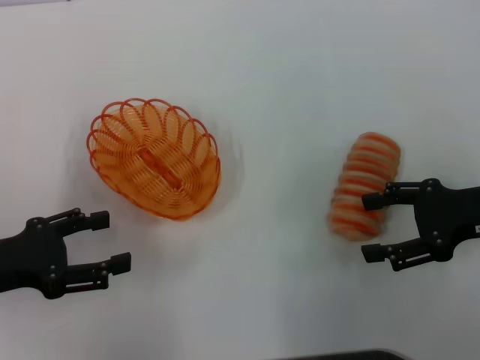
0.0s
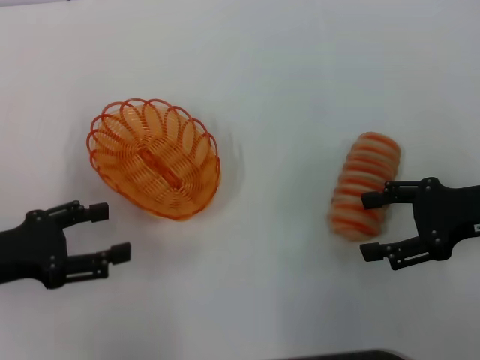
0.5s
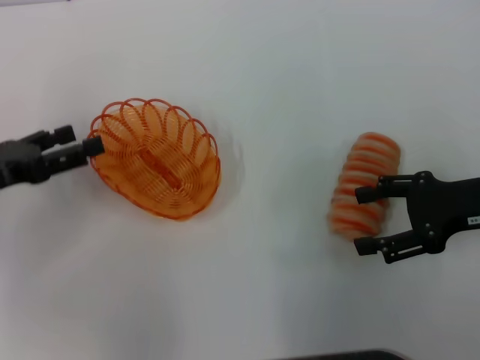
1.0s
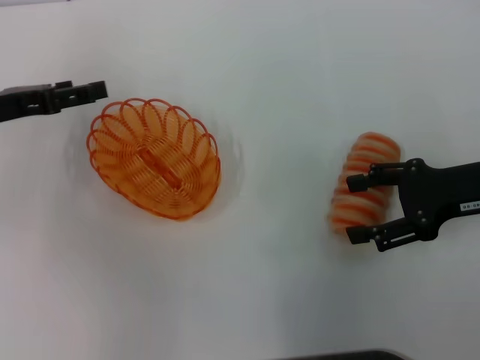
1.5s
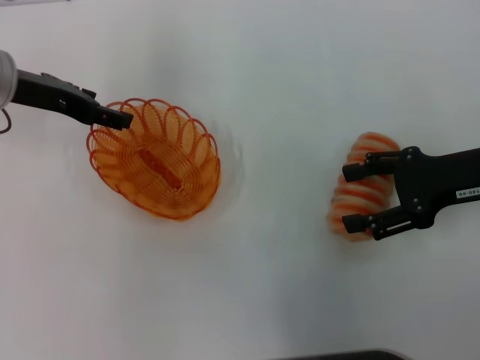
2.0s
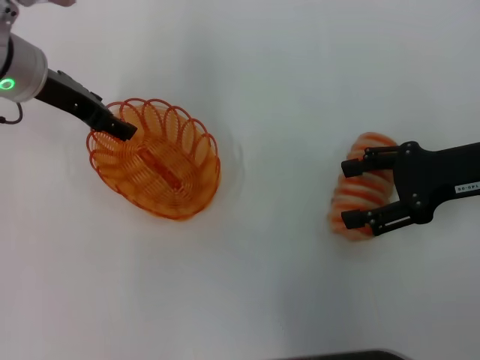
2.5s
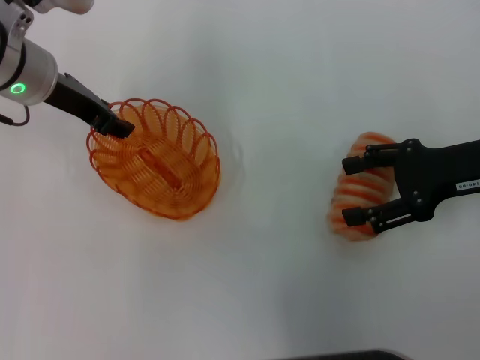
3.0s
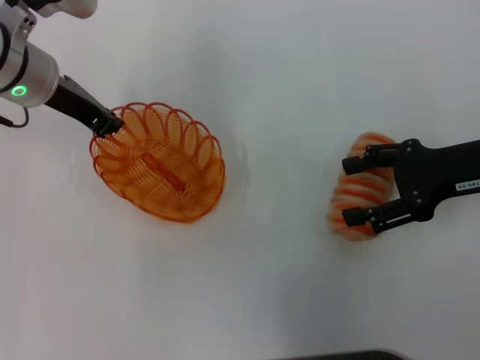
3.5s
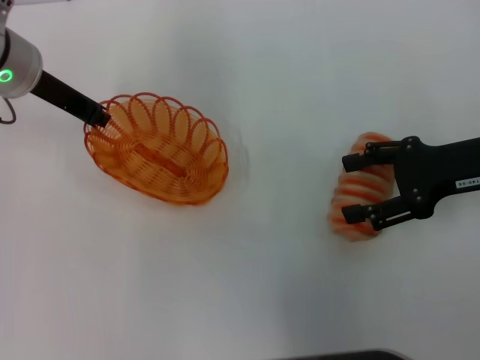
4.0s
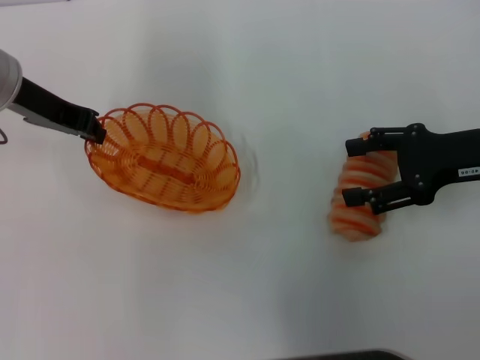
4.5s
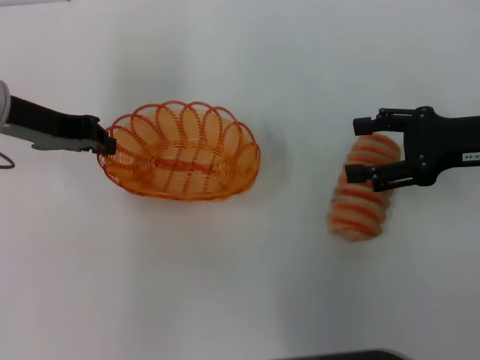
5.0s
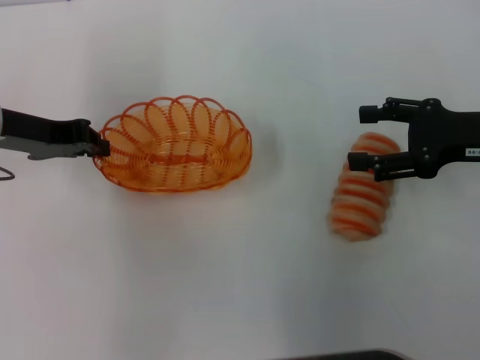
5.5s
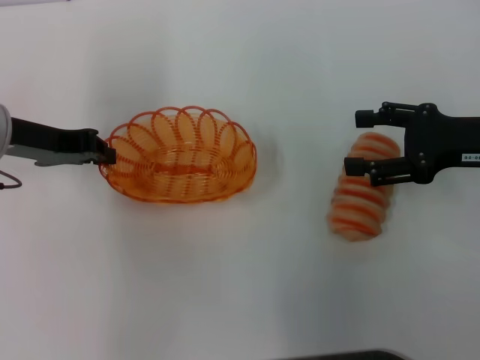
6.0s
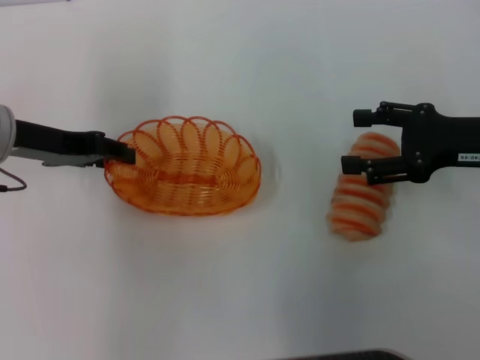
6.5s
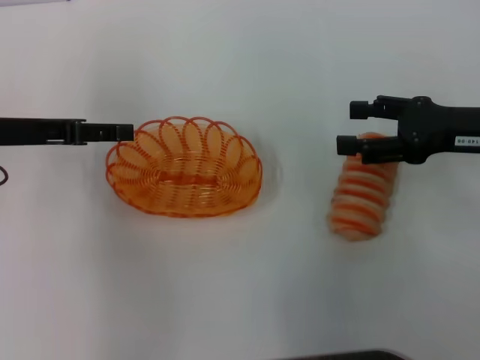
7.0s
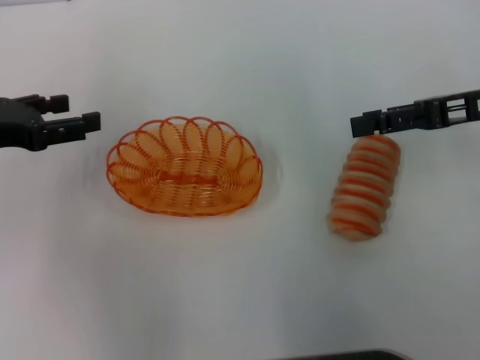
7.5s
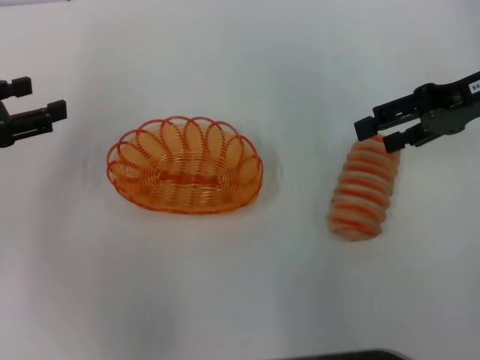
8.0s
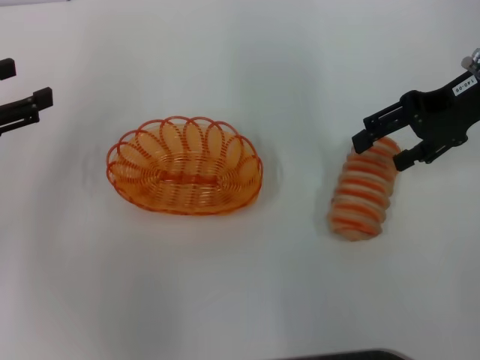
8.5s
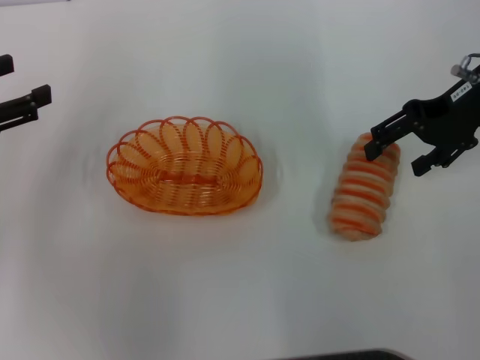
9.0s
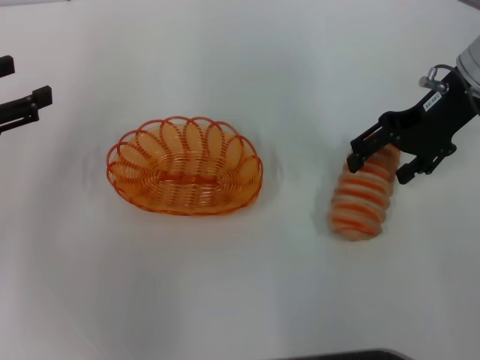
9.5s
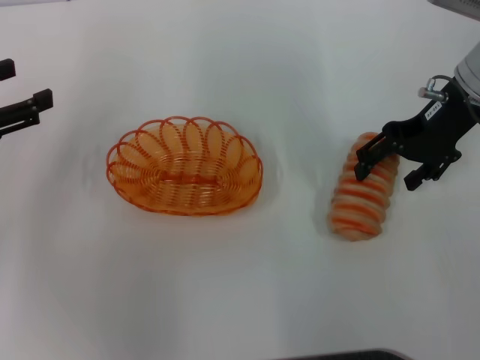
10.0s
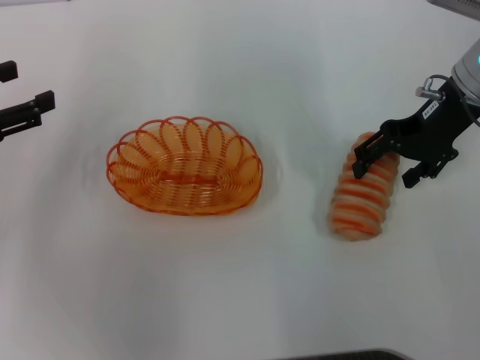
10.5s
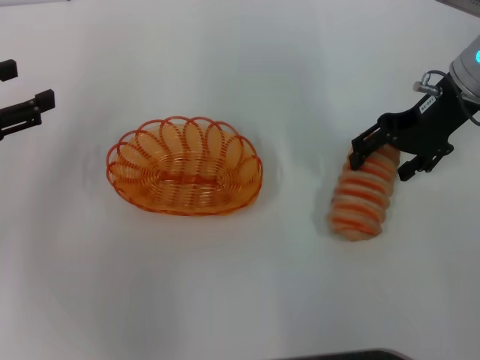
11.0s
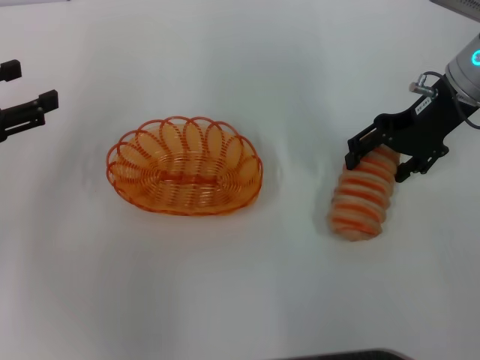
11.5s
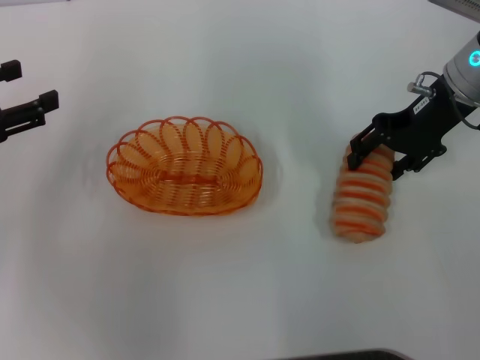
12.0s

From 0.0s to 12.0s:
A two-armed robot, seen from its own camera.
Step, from 0.0s to 3.5s: Pick up the basket with the left gripper.
Step, from 4.5s to 7.0s: Place the basket in the center of view with the left gripper.
From 0.0s to 2.0s: The left gripper is displaced forward and upward by roughly 20 cm.
From 2.0s to 4.0s: The left gripper closes its fingers.
From 4.0s to 6.0s: The left gripper shifts about 5 cm backward.
From 6.0s to 8.0s: The left gripper heads to the left and backward, covering about 10 cm, and opens its fingers. Meanwhile the right gripper travels upward and forward by about 10 cm.
From 8.0s to 10.0s: The right gripper goes approximately 5 cm to the left.
From 10.0s to 12.0s: The grippers stay close to where they were, moving slightly.

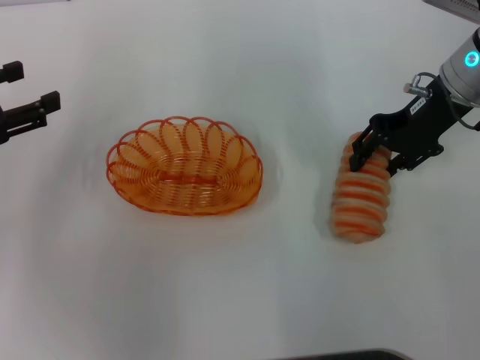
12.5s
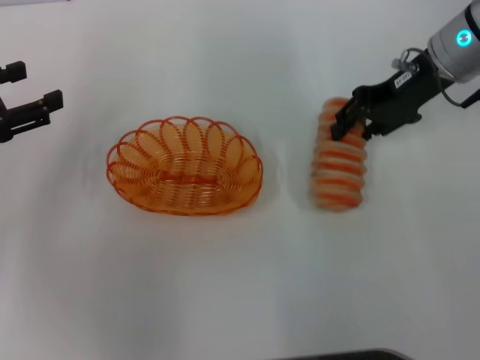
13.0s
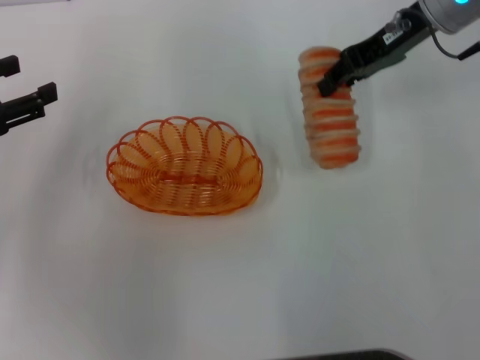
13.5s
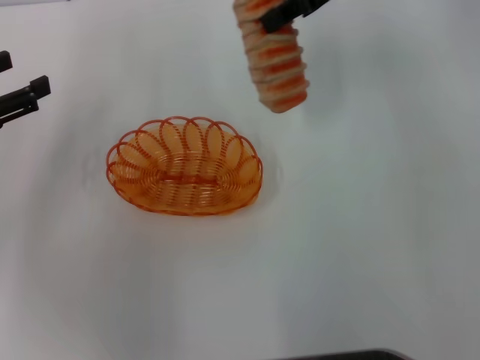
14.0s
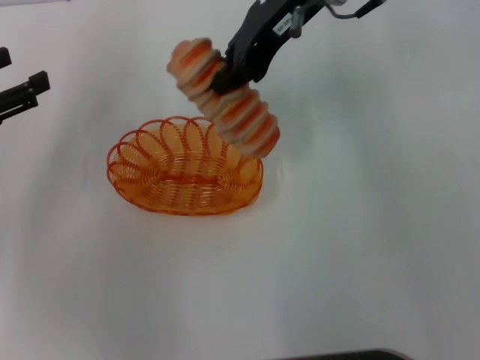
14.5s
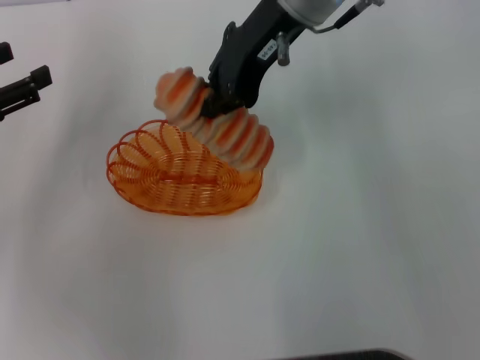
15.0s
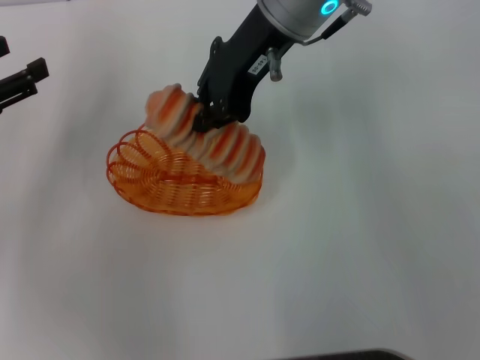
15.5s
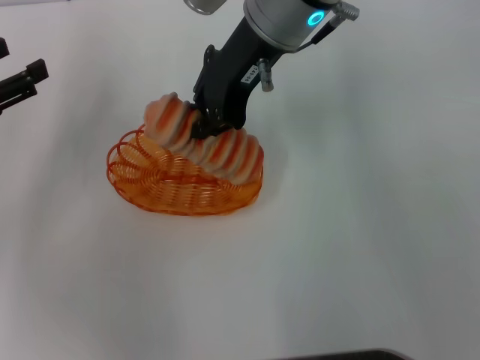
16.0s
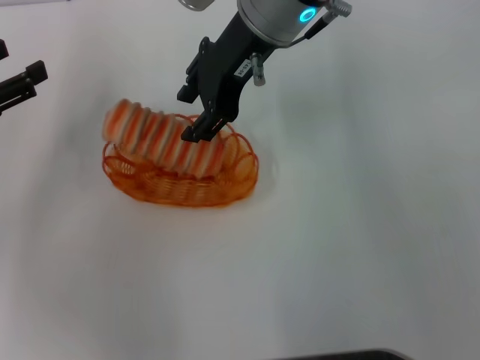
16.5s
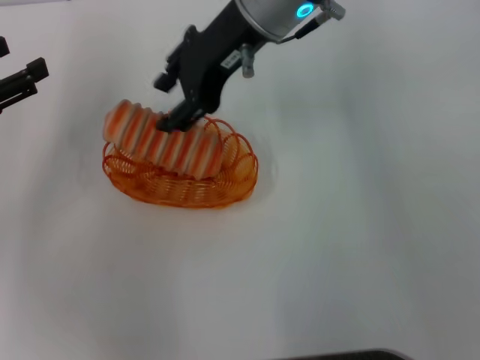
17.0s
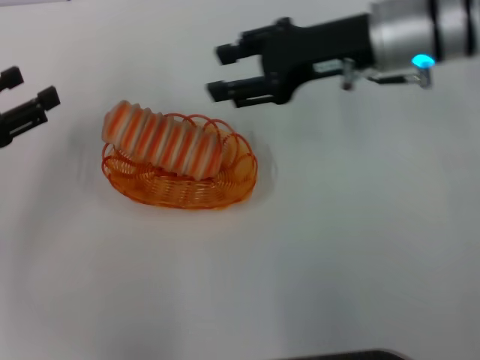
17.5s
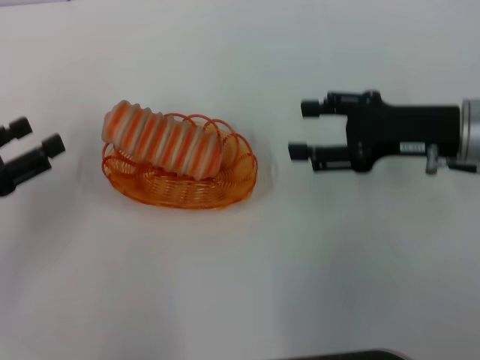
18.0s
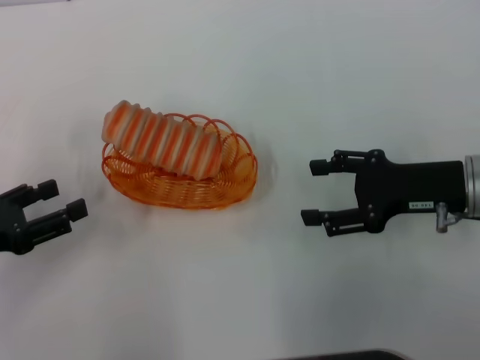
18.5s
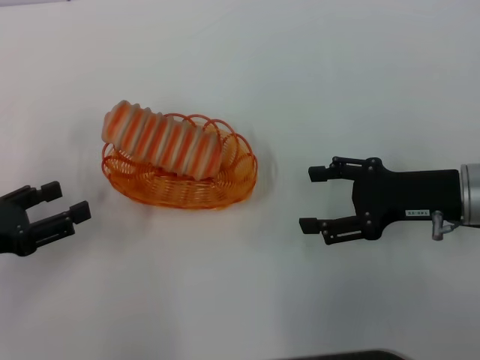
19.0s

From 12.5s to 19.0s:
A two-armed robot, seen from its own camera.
Step, from 13.0s to 17.0s: Place the long bread into the basket with the right gripper.
From 12.5s to 14.5s: The right gripper goes some 15 cm to the left and upward, and closes.
From 14.5s to 17.0s: The right gripper opens its fingers.
From 17.0s to 19.0s: The right gripper goes about 30 cm to the right, downward and backward, and opens. Meanwhile the left gripper travels backward and downward by approximately 10 cm.

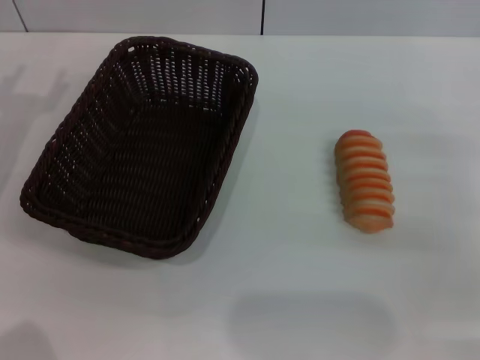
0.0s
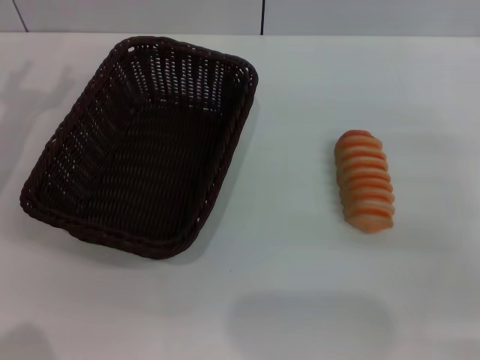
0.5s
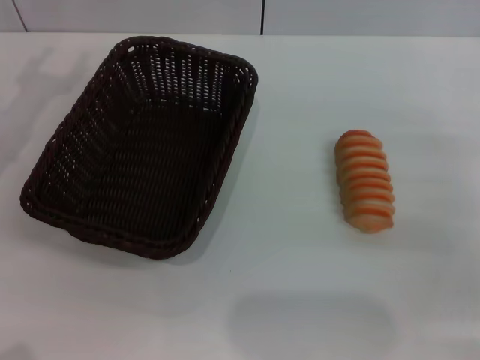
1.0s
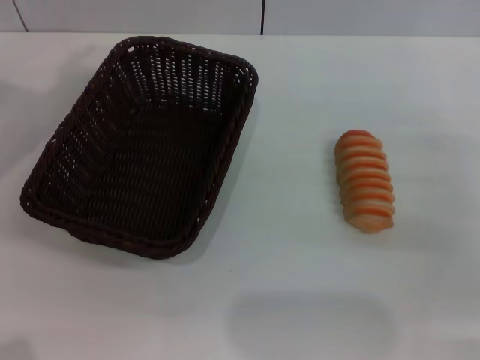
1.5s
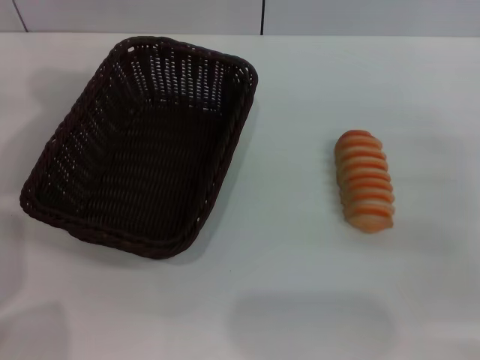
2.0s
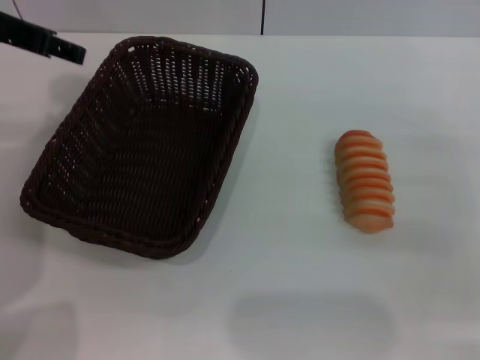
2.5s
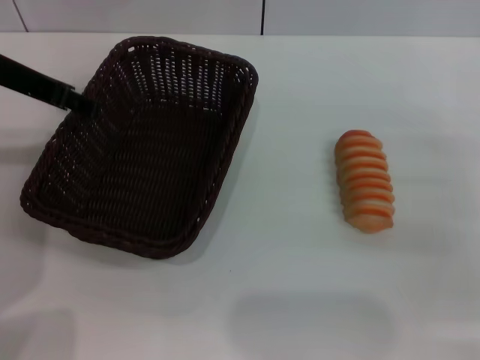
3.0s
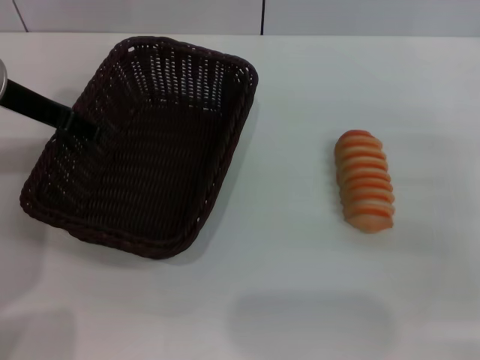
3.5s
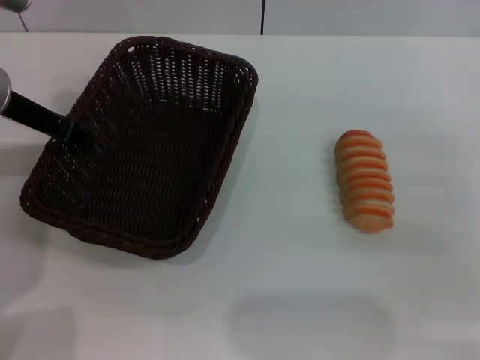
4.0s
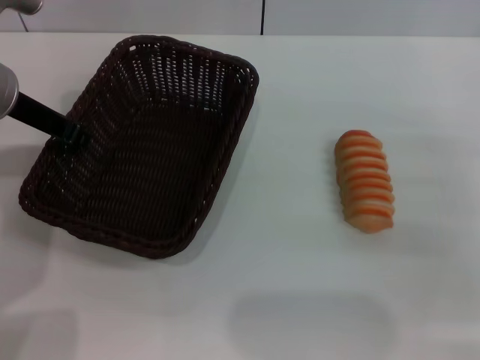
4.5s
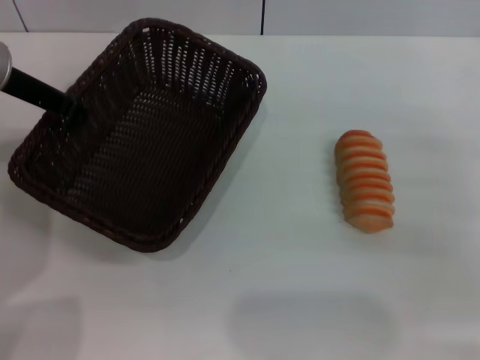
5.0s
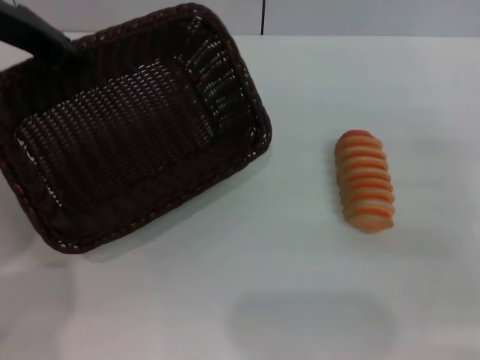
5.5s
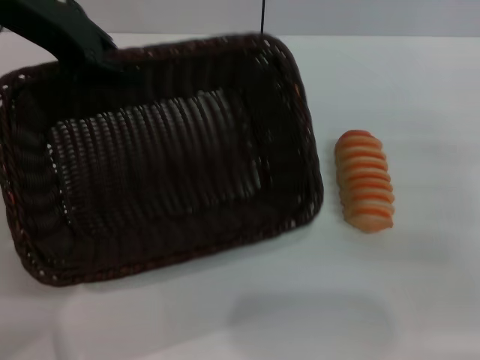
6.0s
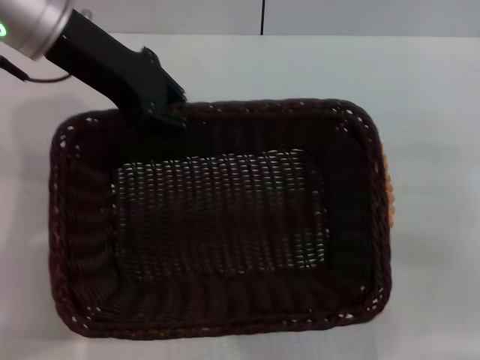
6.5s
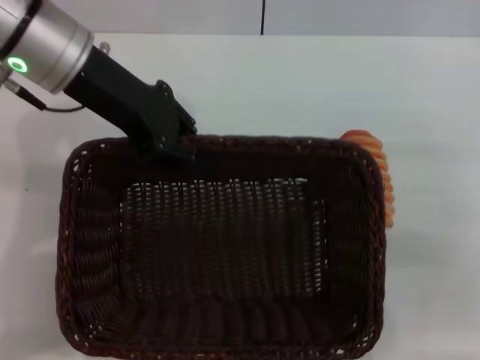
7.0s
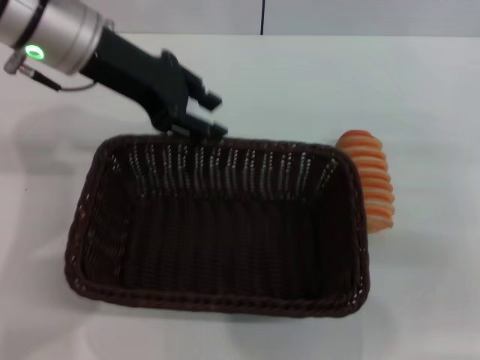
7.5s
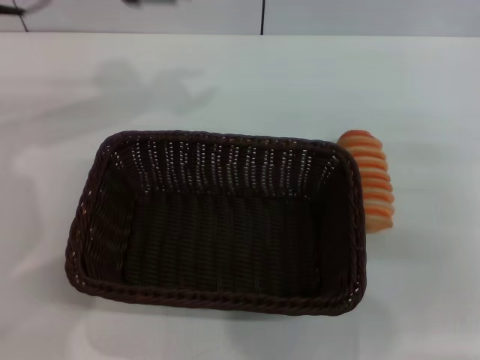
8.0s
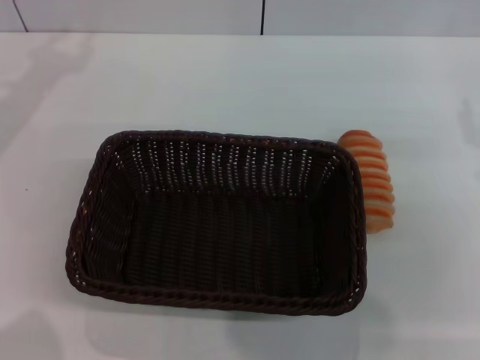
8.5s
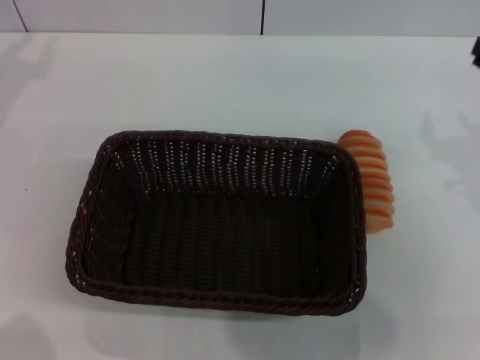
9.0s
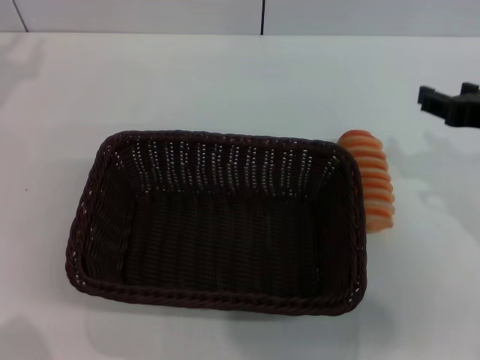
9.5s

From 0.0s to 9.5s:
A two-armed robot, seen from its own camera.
Step, from 0.0s to 4.0s: Grasp the basket with the left gripper.
Step, from 5.0s to 7.5s: Place the basket in the center of the table with the left gripper.
From 0.0s to 2.0s: The left gripper moves upward and to the right, approximately 15 cm.
From 2.0s to 4.0s: The left gripper heads downward, covering some 10 cm.
From 4.0s to 5.5s: The left gripper goes some 5 cm upward, and closes its fingers.
From 5.5s to 7.5s: The left gripper heads to the right, covering about 10 cm, and opens.
From 7.5s to 9.5s: The right gripper moves to the left, about 5 cm. Meanwhile the left gripper is displaced to the left by some 20 cm.
